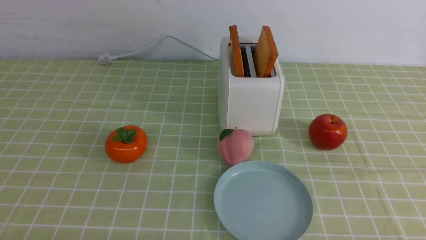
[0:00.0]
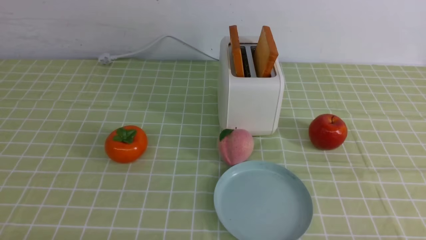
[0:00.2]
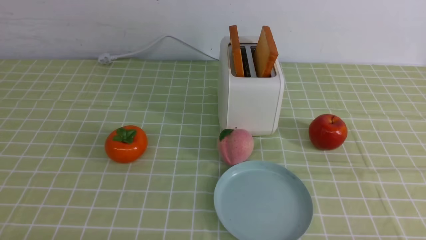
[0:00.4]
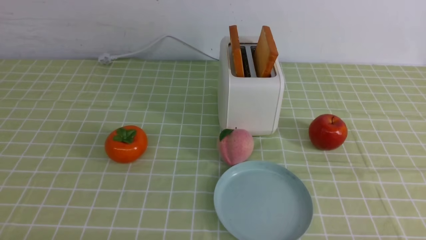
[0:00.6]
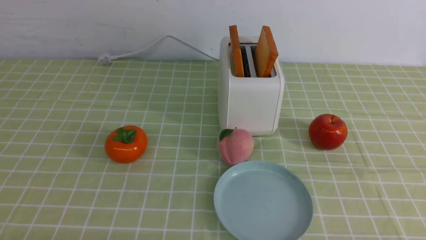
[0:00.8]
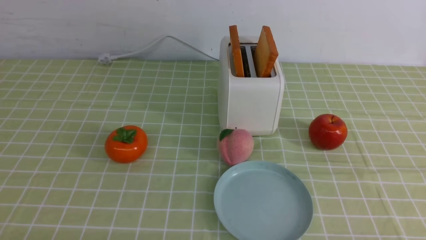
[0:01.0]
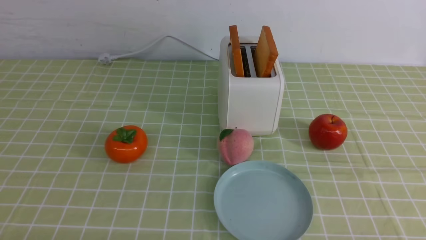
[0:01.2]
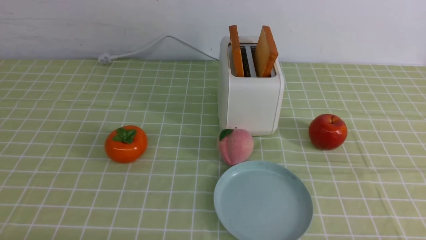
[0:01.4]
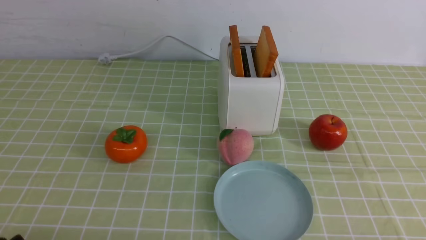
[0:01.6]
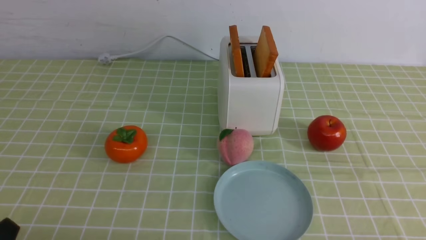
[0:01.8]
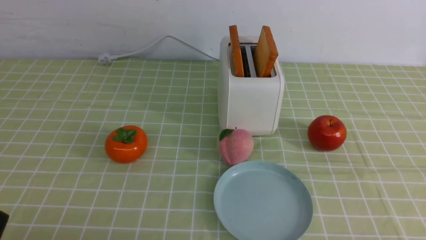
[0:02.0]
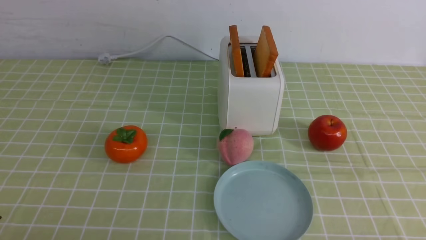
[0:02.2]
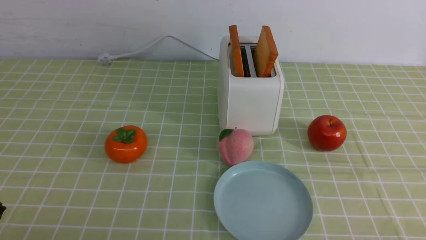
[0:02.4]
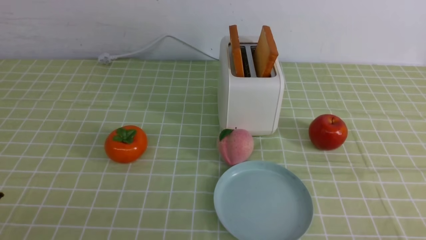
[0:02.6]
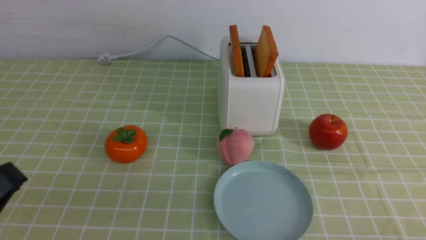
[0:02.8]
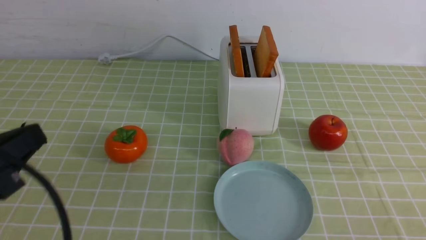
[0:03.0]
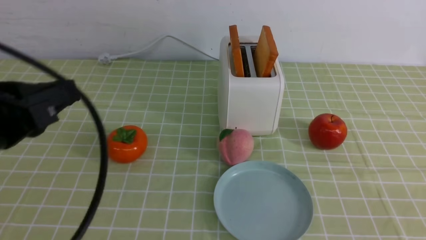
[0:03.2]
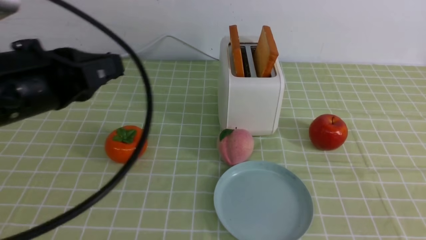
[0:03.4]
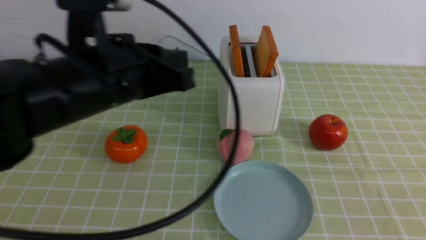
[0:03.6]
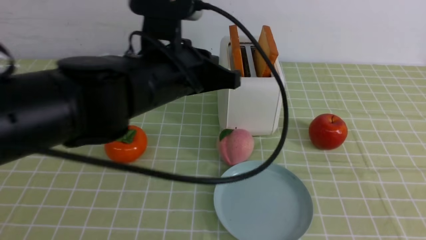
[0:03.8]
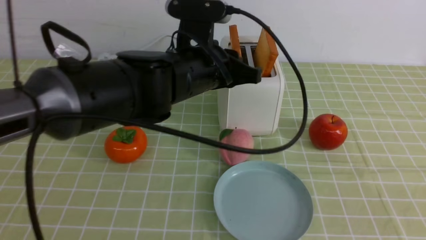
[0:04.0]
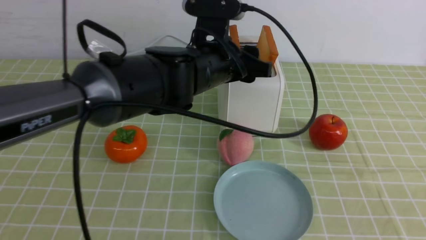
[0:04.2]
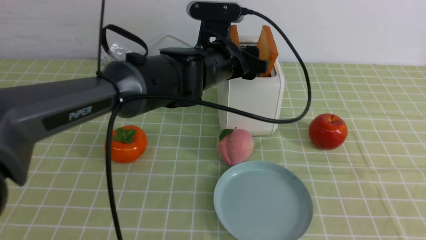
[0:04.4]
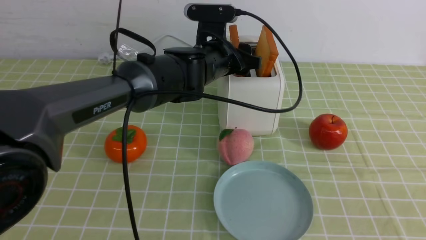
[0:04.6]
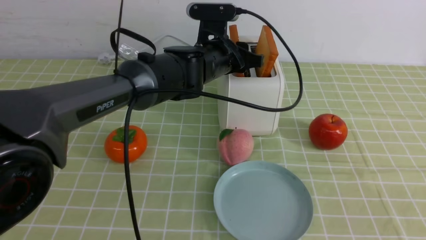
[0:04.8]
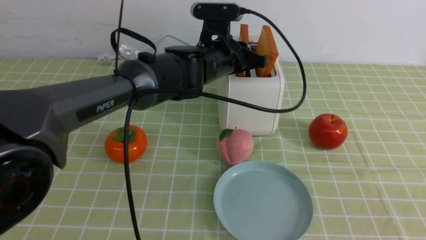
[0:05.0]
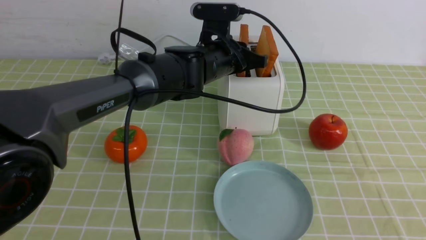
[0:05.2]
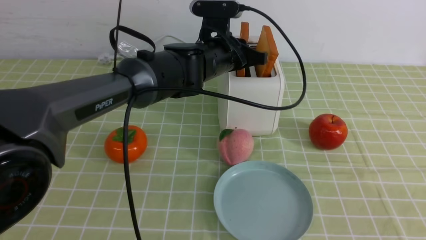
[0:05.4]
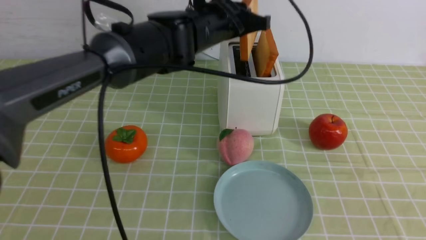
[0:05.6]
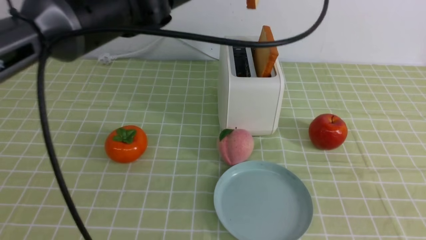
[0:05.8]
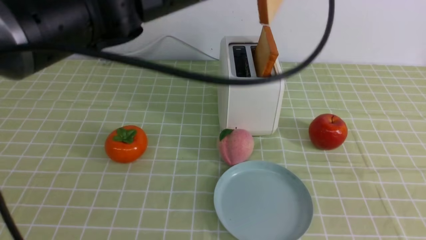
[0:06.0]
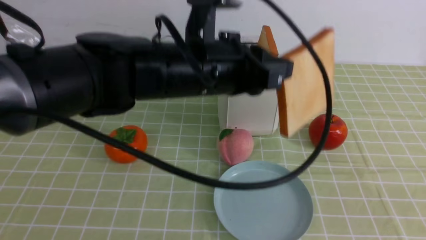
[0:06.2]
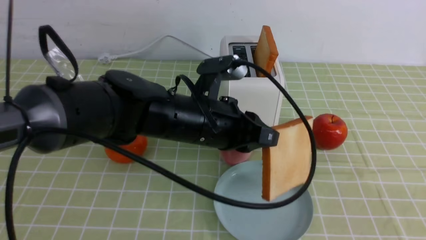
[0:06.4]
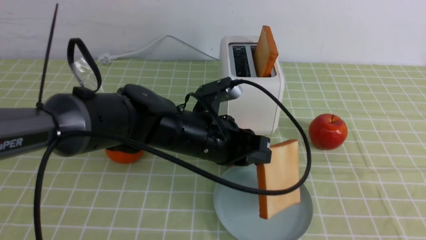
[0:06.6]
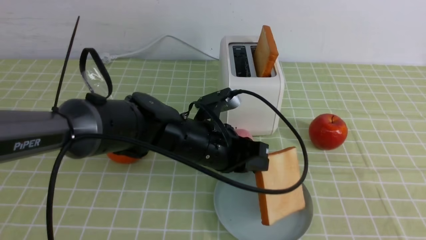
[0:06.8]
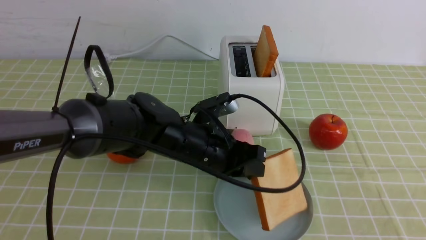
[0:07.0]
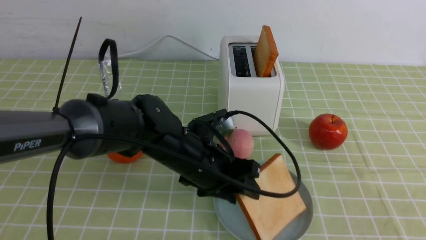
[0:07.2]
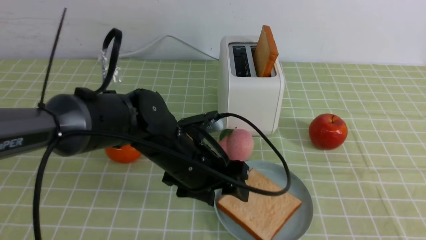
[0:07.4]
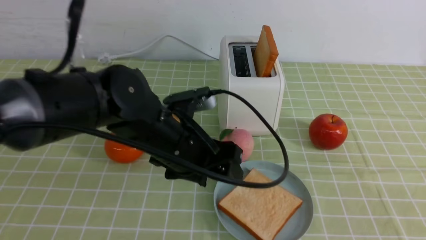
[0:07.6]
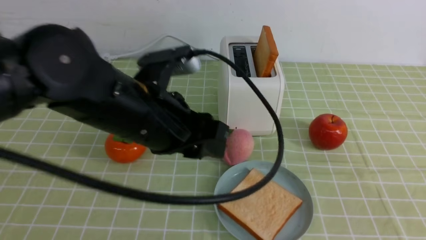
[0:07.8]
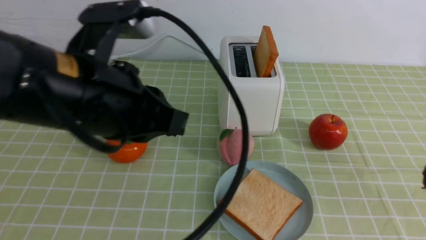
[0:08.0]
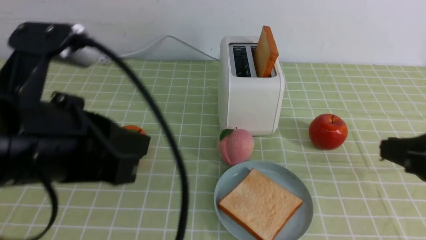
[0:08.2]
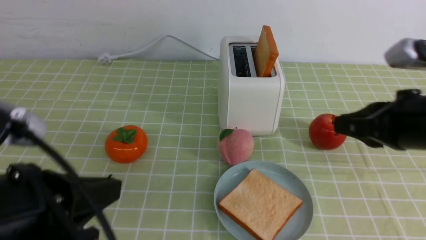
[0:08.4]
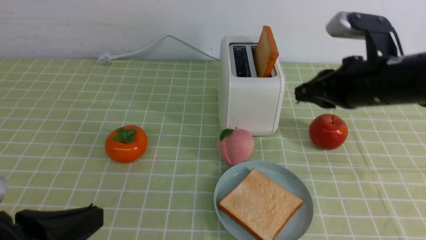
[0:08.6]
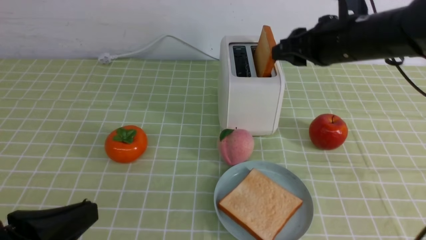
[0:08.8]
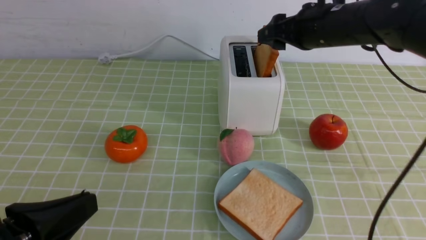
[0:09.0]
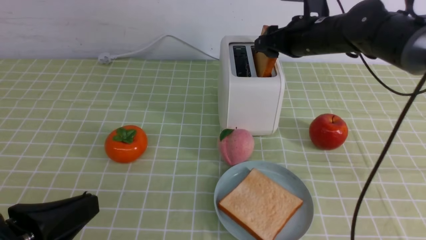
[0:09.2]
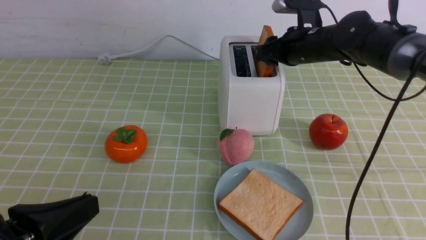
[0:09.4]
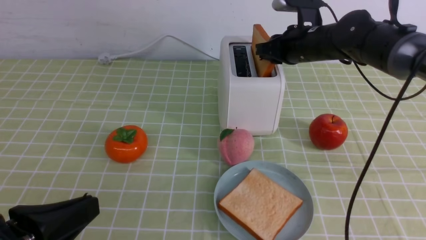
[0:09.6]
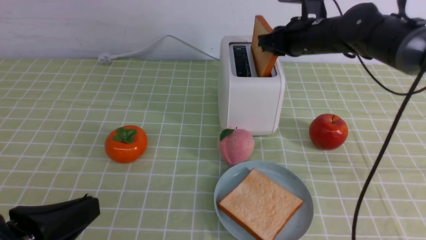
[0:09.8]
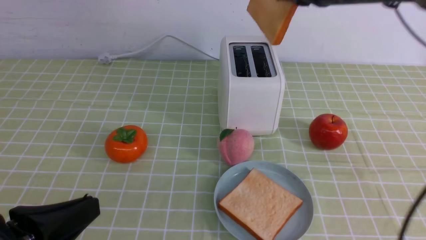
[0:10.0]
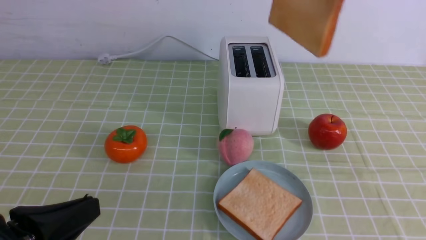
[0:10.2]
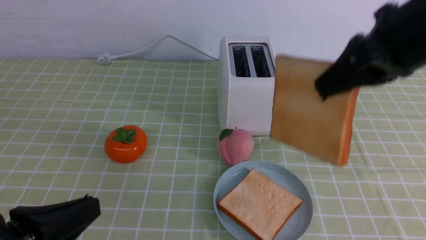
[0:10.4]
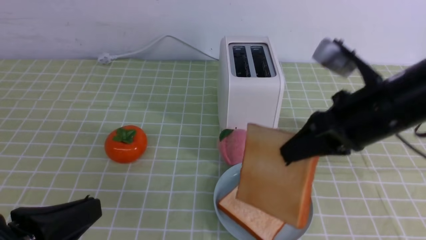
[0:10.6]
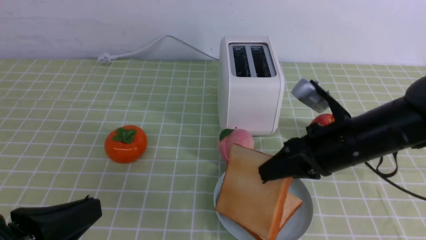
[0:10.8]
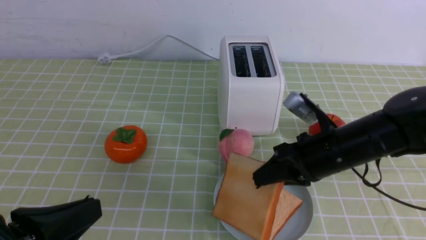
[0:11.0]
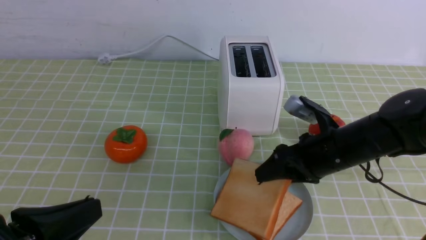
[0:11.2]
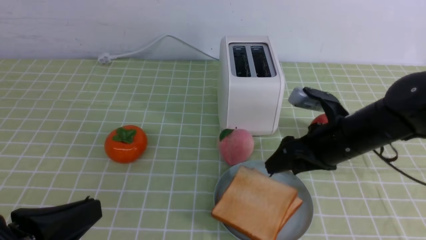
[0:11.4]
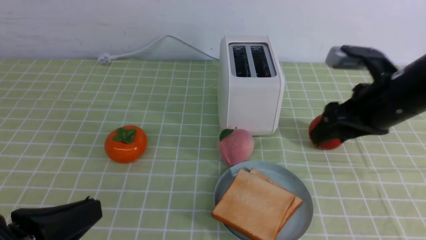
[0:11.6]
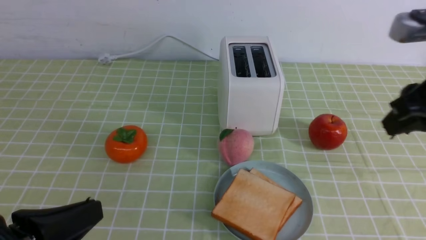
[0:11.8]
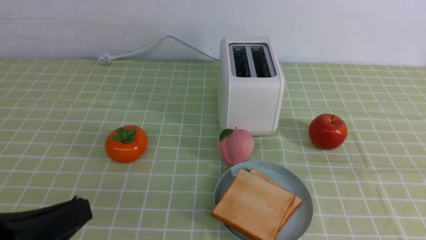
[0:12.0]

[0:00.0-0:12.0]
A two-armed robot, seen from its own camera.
Task of the whole recording: take toasted bread from bread machine on green coffee tablecloth place on plate.
Step, 0:00.0 to 0:05.8: use the left arm to take out a slice of bread.
Step, 0:06.0 to 0:07.6: use the left arm to put a slice of bread into the empty plate.
Step, 0:07.8 to 0:09.8: use the right arm to take out a slice of bread.
Step, 0:10.0 to 0:11.6: use the right arm to put a slice of bread into the plate.
0:01.6 to 0:03.0: The left gripper moves upward, some 15 cm, and closes its fingers.
0:03.0 to 0:04.4: The right gripper shifts roughly 10 cm upward. Meanwhile the left gripper heads forward and to the right, covering about 35 cm, and opens its fingers.
0:04.4 to 0:06.0: The left gripper is displaced upward by some 10 cm, and closes up.
0:06.0 to 0:07.6: The left gripper is displaced downward and backward by about 15 cm, and opens.
0:07.6 to 0:09.0: The left gripper heads backward and to the left, covering roughly 25 cm, and closes; the right gripper is displaced forward by roughly 35 cm, and opens up.
0:09.0 to 0:10.4: The right gripper is displaced backward and upward by roughly 15 cm, and closes its fingers.
0:10.4 to 0:12.0: The right gripper is displaced backward and to the right by roughly 15 cm, moves roughly 20 cm downward and comes back, and opens and closes again.

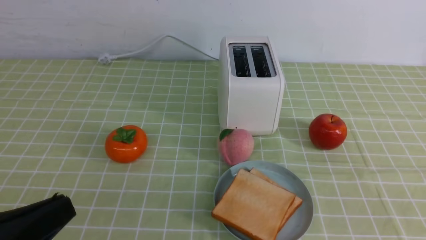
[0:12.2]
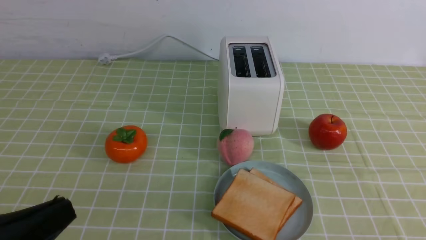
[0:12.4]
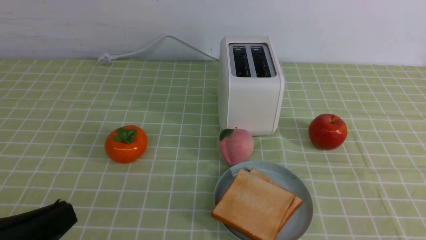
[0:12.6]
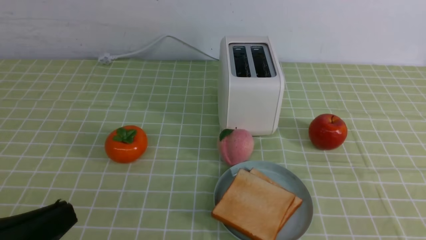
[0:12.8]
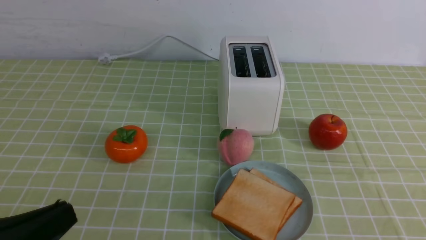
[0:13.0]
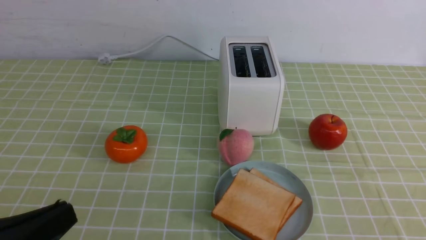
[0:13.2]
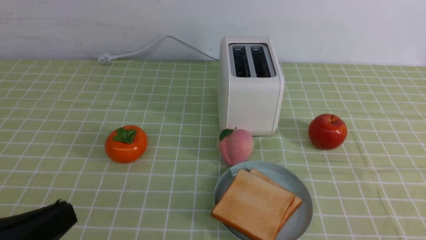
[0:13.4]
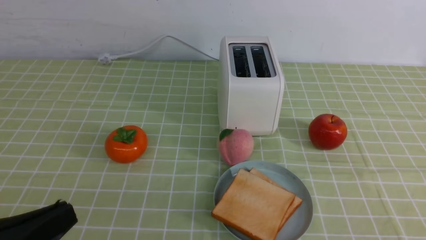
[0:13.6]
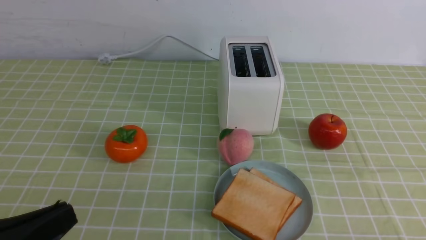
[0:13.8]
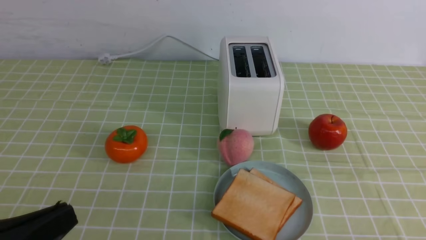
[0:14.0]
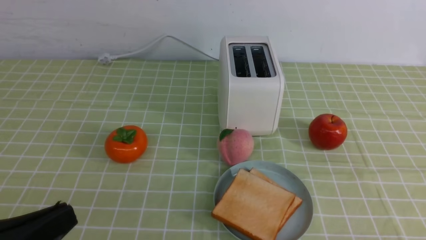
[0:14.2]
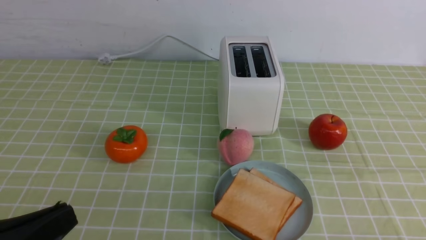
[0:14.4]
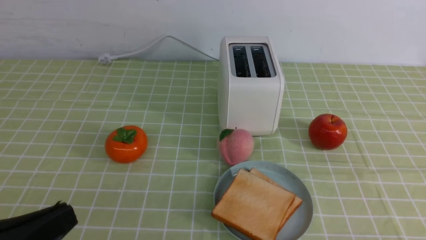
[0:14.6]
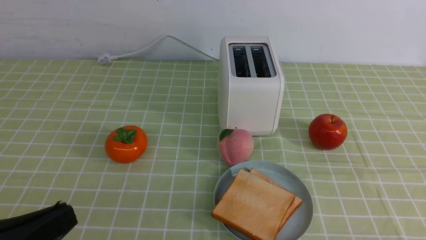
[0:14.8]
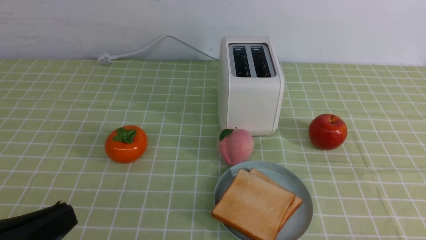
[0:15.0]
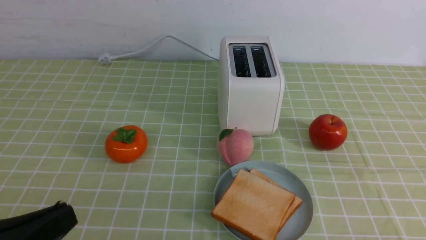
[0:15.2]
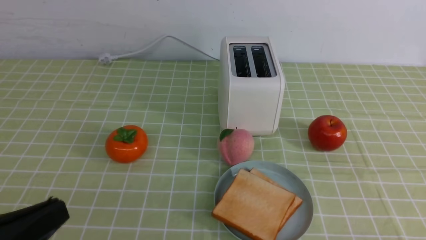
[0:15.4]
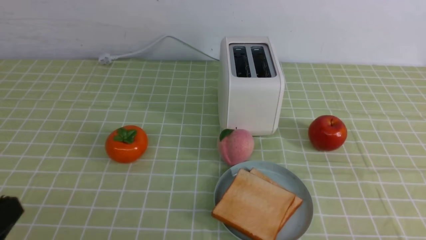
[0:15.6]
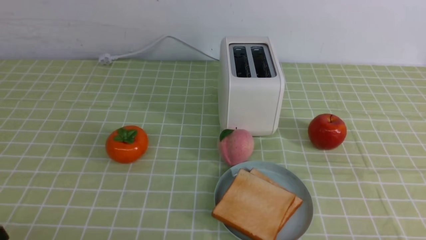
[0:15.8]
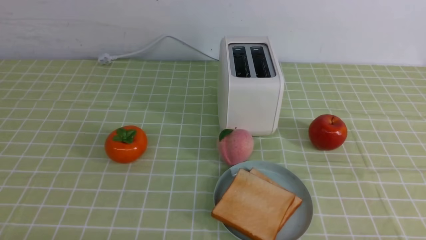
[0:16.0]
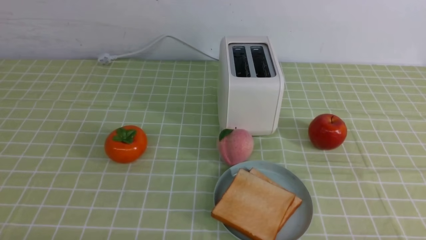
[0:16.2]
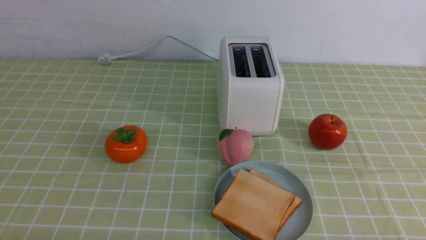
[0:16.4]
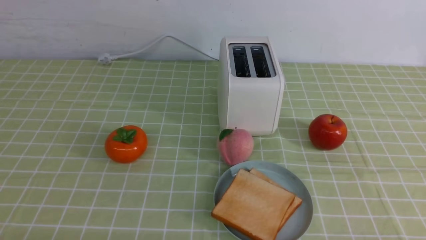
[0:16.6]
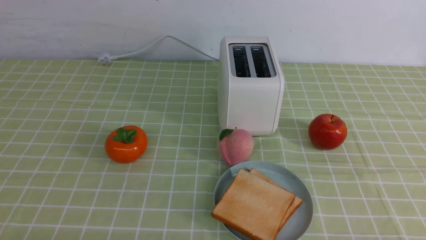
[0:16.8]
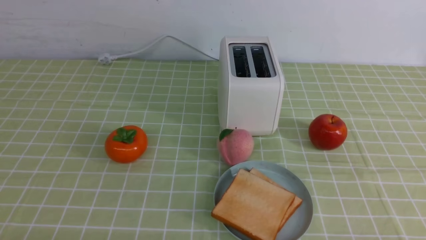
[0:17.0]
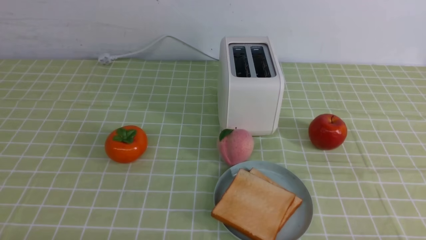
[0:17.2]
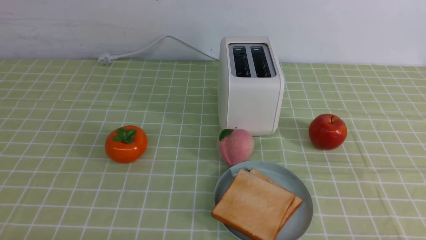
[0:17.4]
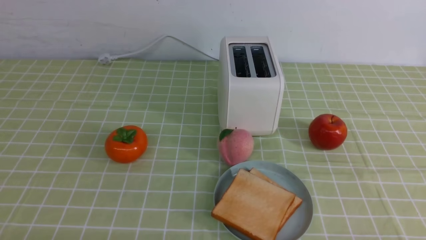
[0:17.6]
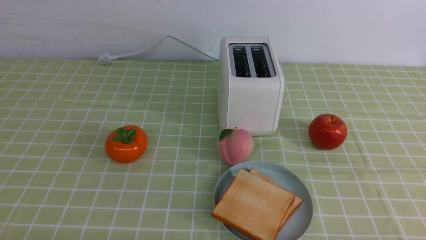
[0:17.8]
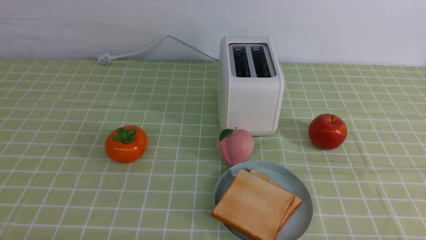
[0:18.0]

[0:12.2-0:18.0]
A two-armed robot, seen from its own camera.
Task of the whole recording: take toasted bread from bread machine on green coffee tablecloth place on plate.
0:15.0 to 0:16.6: The left gripper shifts about 10 cm downward.
0:16.6 to 0:18.0: Both grippers stay about where they are.
